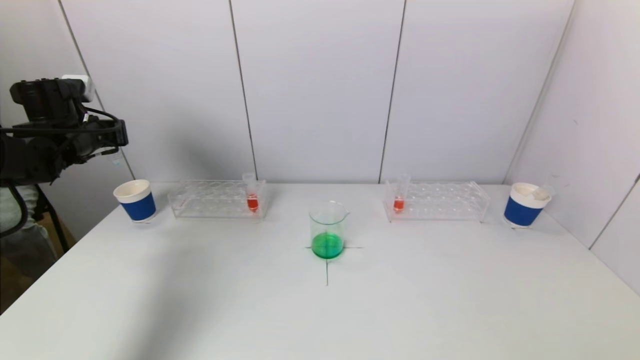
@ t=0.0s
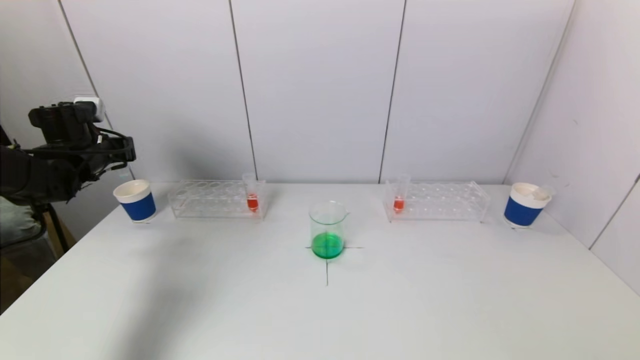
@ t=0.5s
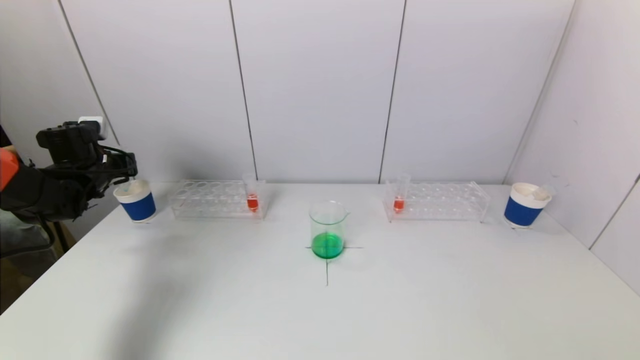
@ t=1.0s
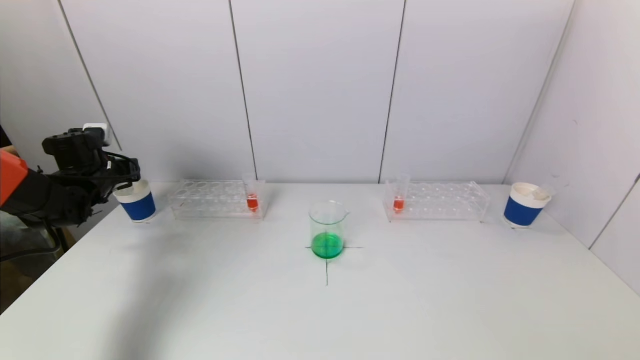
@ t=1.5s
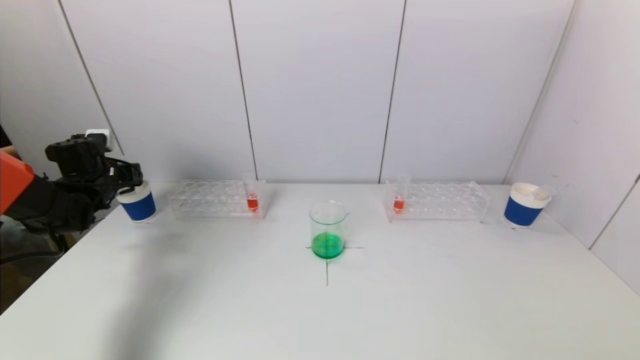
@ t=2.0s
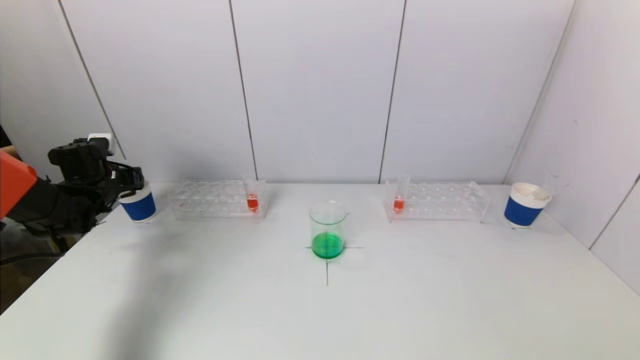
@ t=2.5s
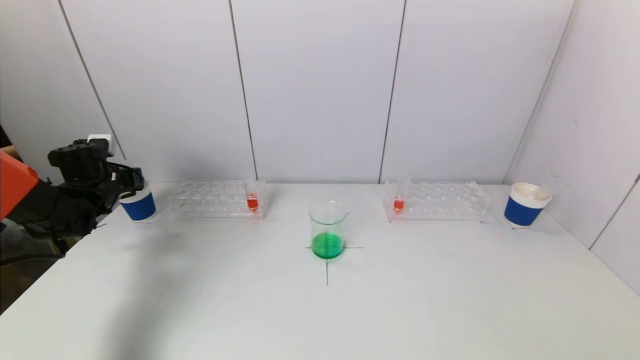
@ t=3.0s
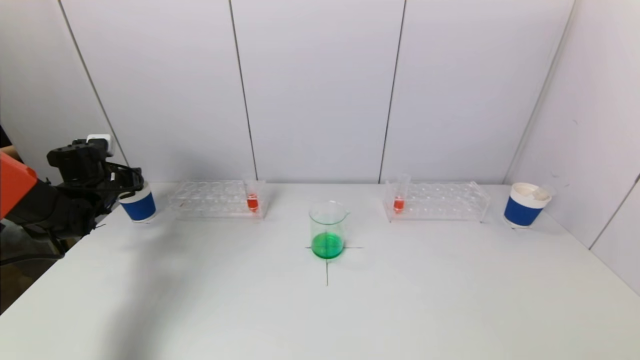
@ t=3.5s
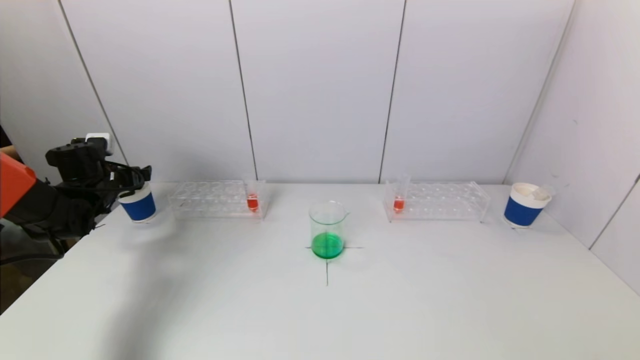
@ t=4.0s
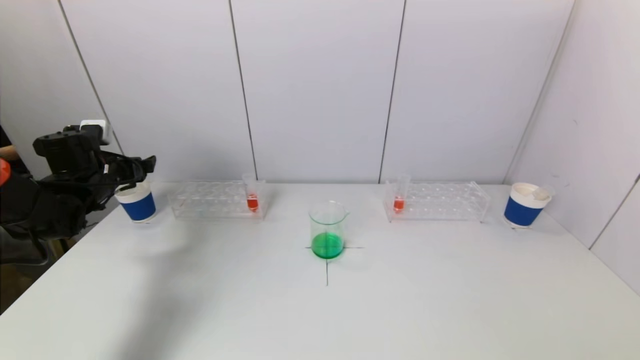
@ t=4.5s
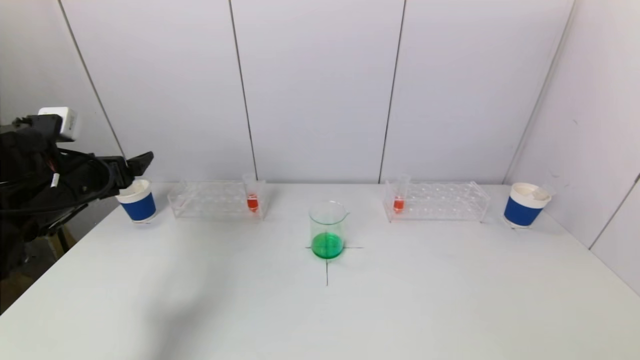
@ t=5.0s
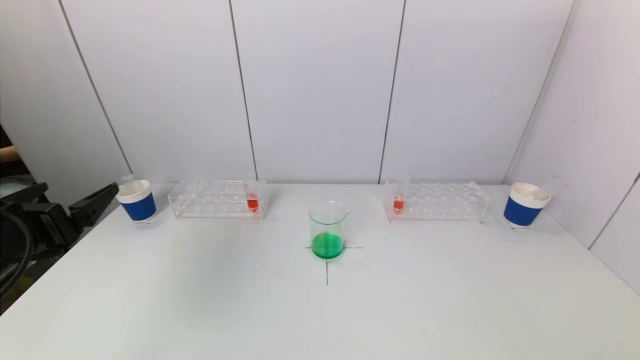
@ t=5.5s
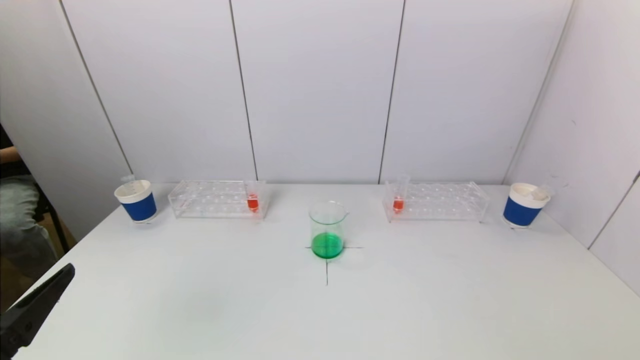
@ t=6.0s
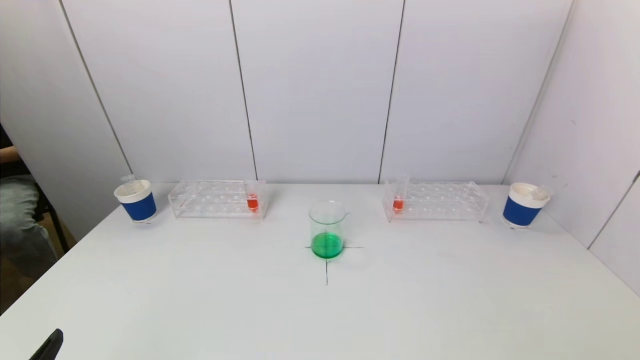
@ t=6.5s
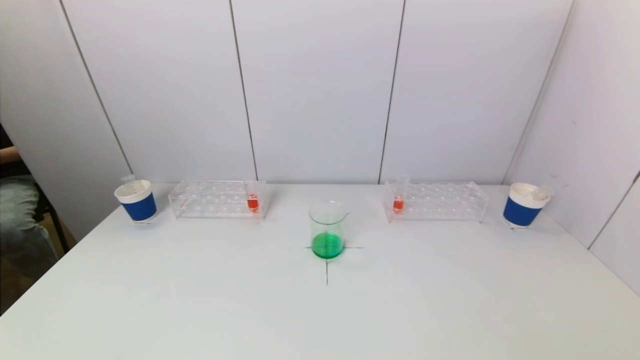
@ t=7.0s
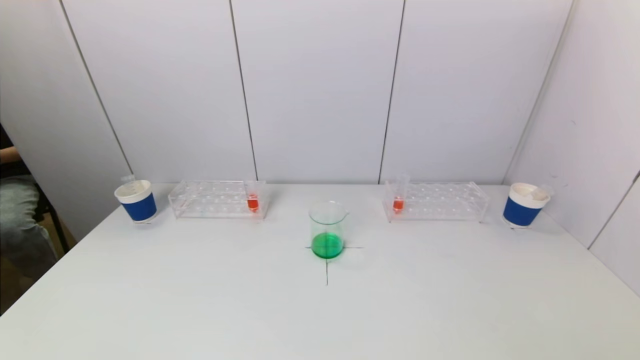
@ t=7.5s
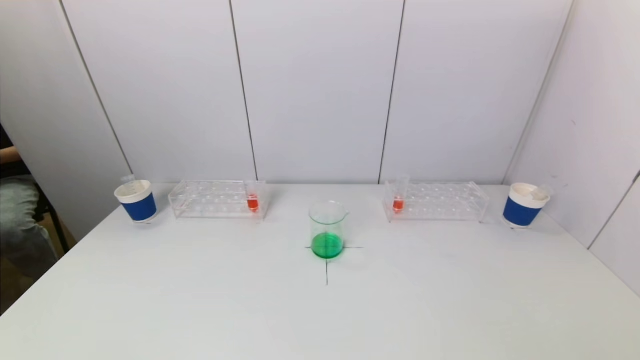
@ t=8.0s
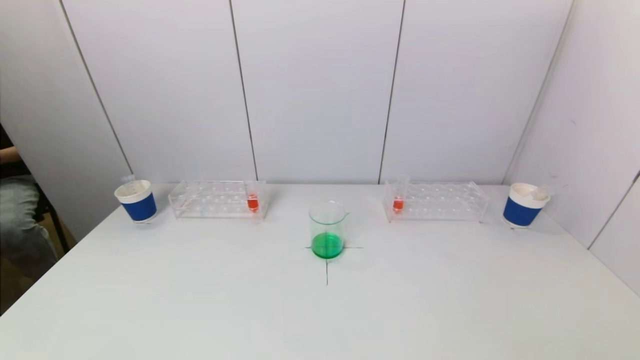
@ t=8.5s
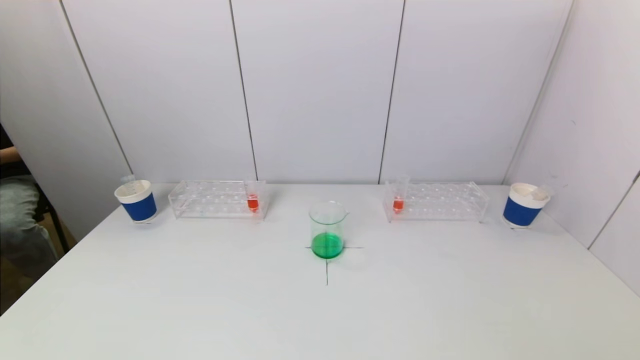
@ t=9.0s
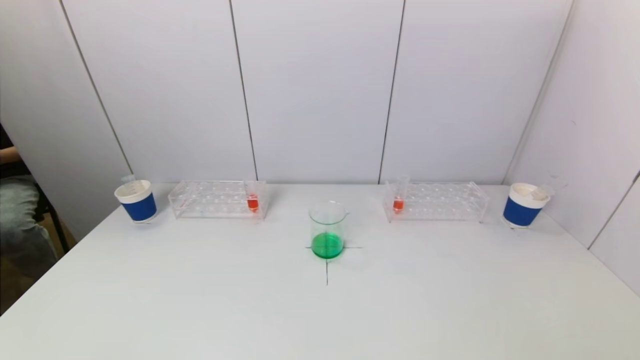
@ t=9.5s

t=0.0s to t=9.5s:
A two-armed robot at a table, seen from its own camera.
Task of the whole recording: pick up a test tube with pigment on left test tube rack and a test tube with pigment on right test tube rack by grippers and pour them into the beaker.
Step, t=0.0s to t=3.5s: Place the test tube into the paper cup with the left gripper.
t=0.0s to t=2.0s: The left gripper heads downward, covering some 10 cm.
t=2.0s to t=4.0s: The left gripper opens its fingers.
t=4.0s to t=5.5s: The left gripper is displaced backward by about 25 cm.
t=5.5s to t=7.5s: The left gripper moves backward and downward, about 20 cm.
t=7.5s to t=9.5s: Neither gripper changes place.

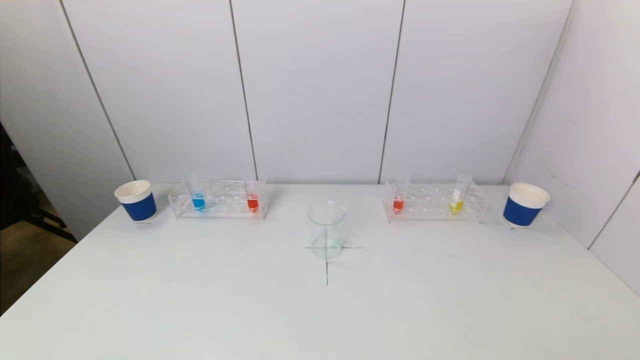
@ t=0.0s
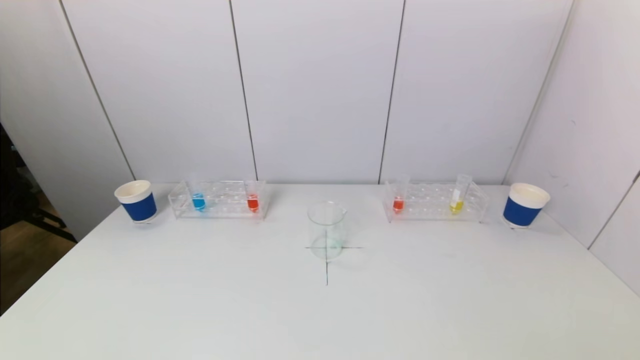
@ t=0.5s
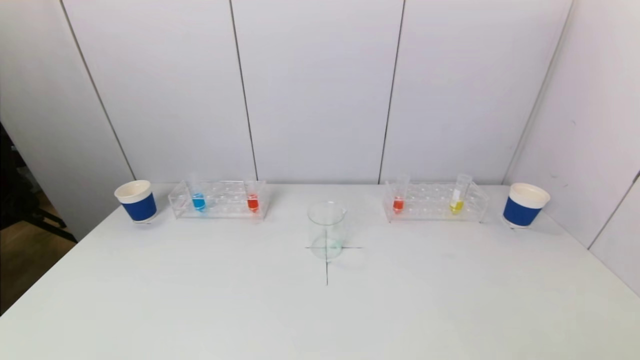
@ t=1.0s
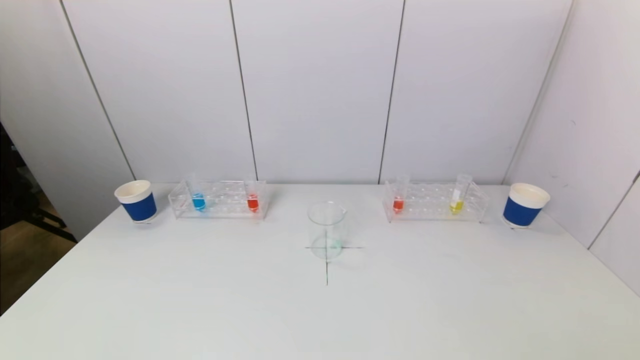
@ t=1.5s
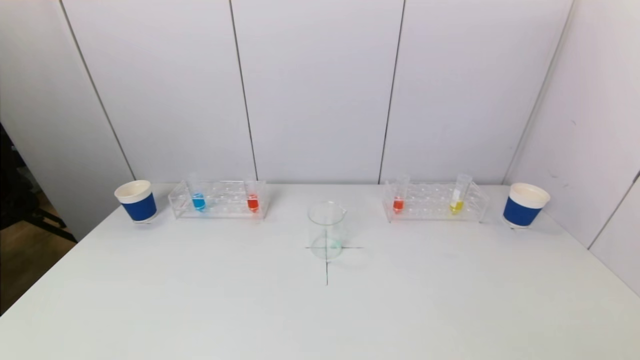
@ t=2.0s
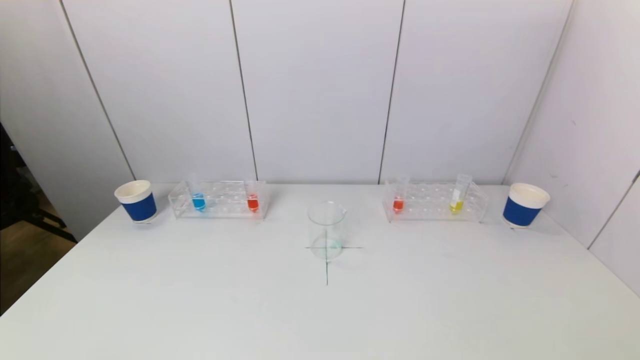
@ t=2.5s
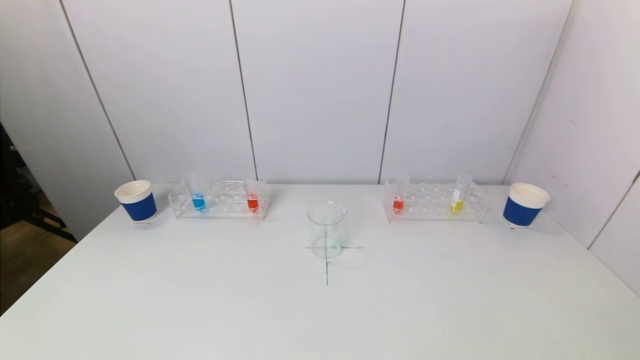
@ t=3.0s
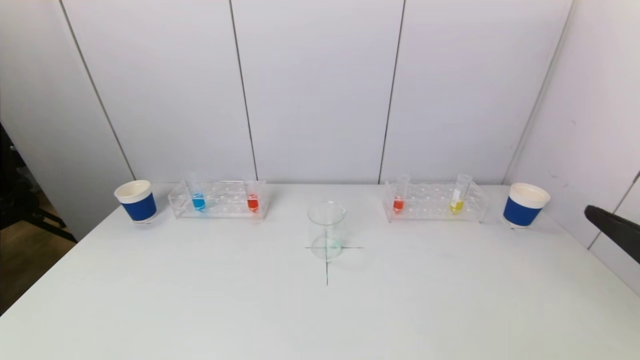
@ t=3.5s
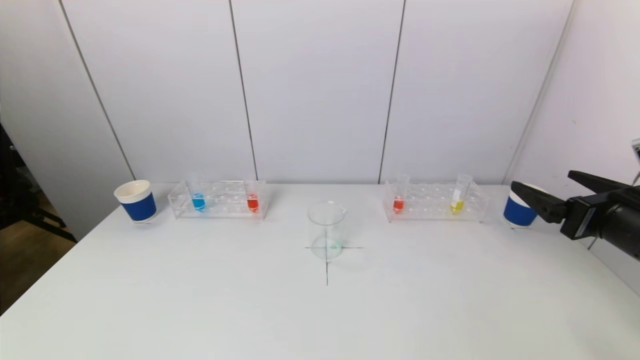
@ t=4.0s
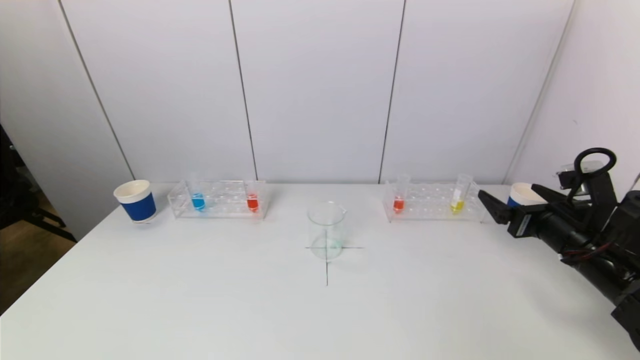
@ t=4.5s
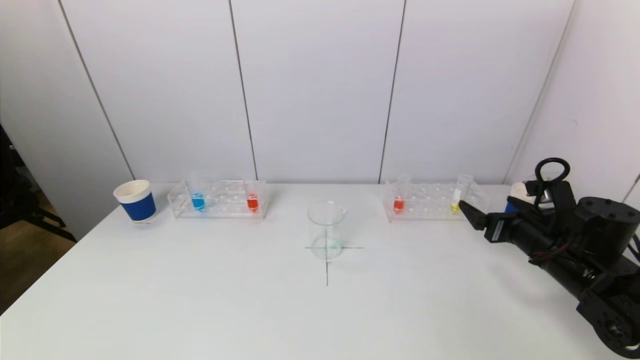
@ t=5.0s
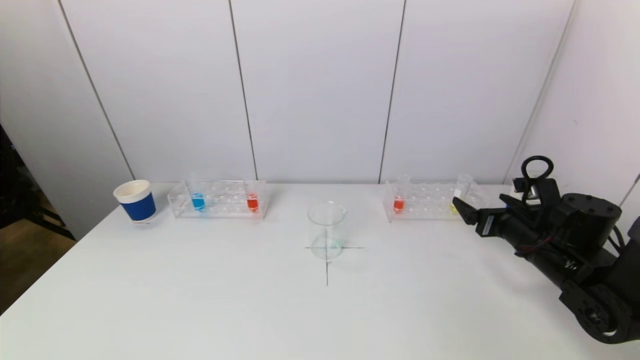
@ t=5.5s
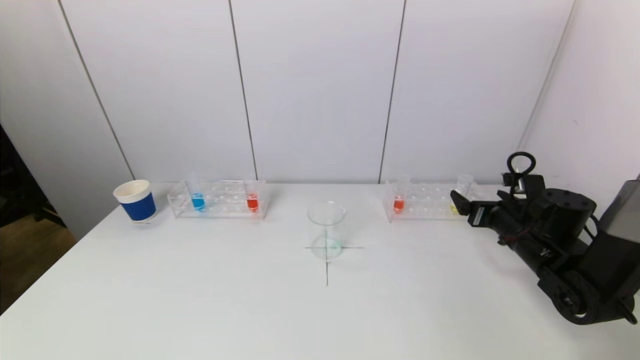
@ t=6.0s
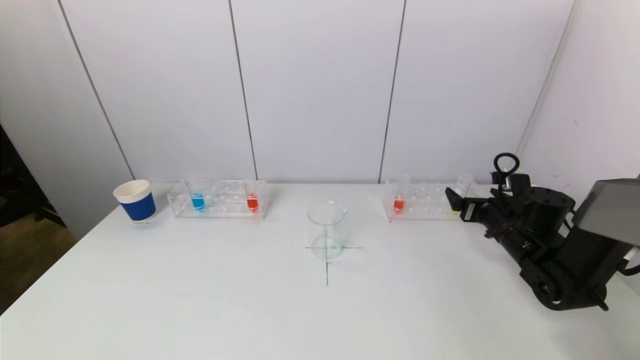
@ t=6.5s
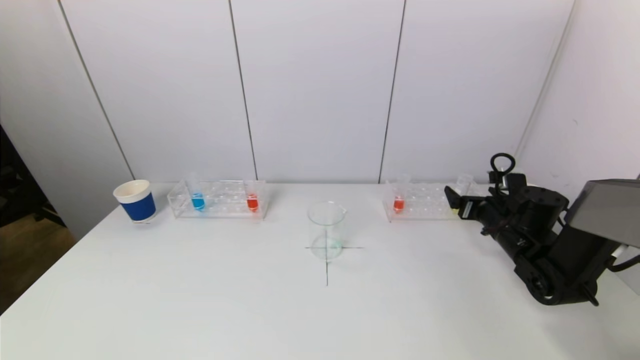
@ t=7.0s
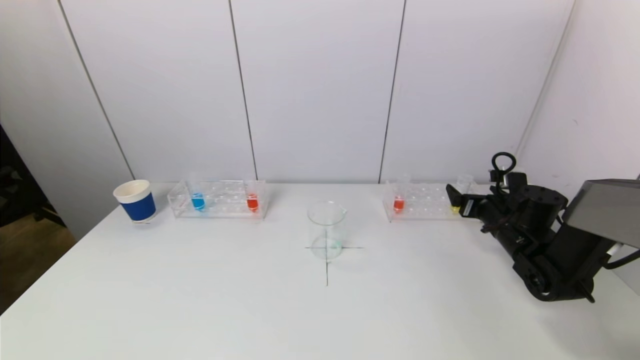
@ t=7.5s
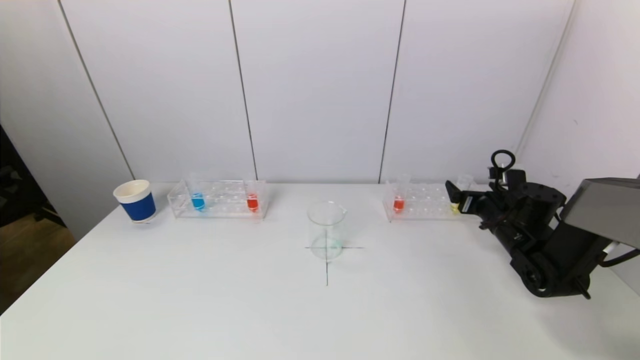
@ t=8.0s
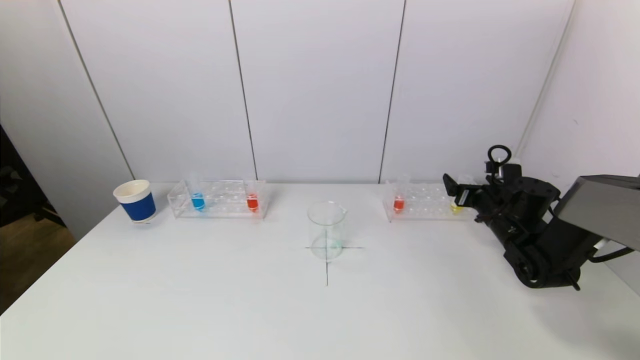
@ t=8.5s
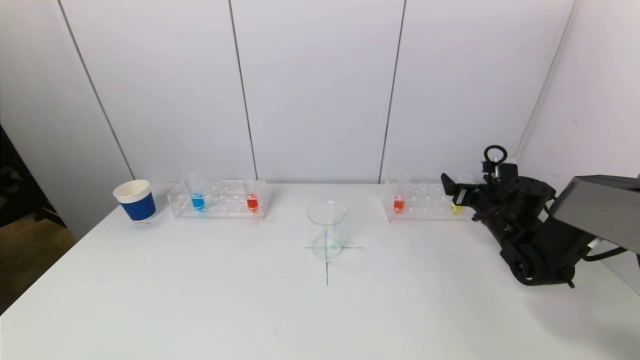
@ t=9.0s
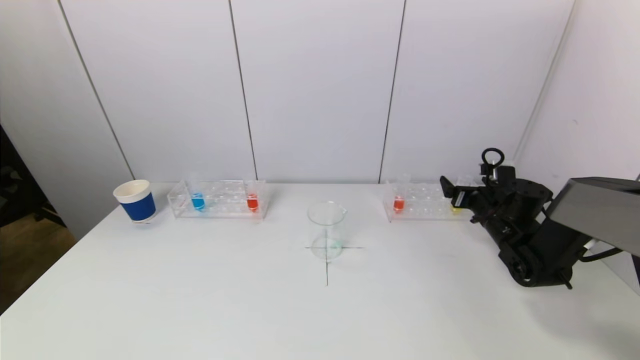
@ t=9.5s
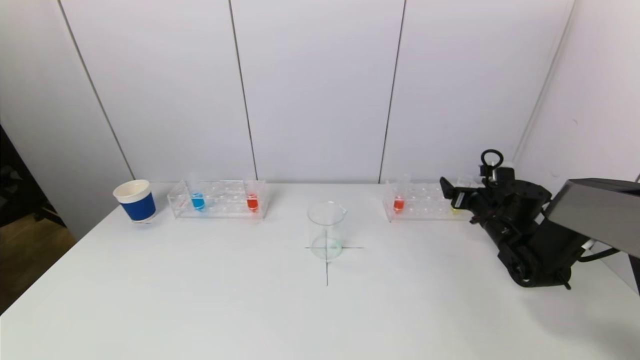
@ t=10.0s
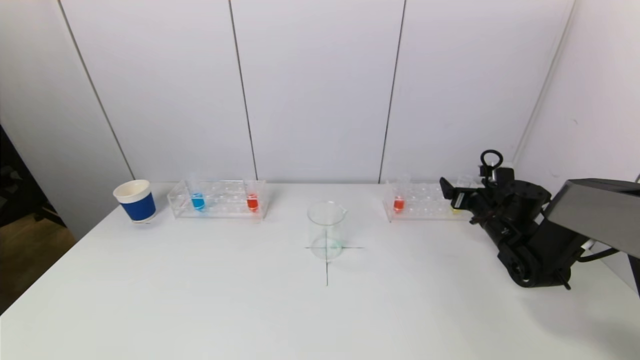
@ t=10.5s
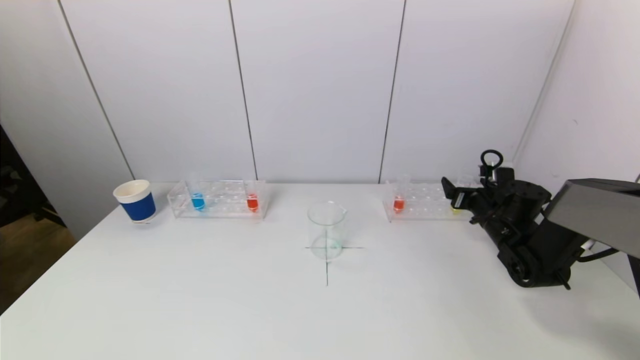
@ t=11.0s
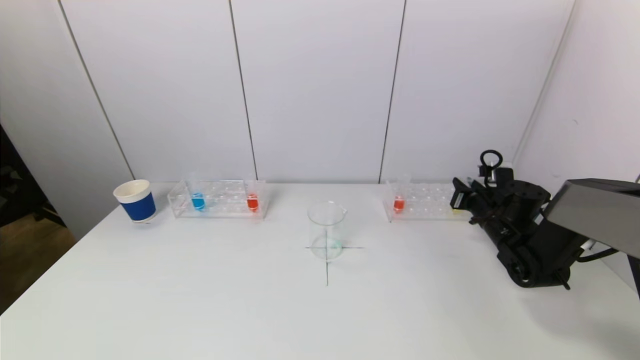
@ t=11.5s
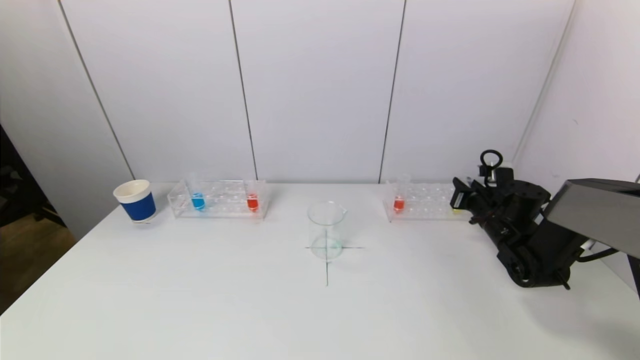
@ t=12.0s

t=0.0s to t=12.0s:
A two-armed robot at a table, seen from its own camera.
Task of the whole recording: pick up a test tube with pigment on left test tube rack and a test tube with pigment on right test tube rack by grippers and pour them into the beaker.
Step, t=0.0s to t=11.5s: Grasp the yellow reagent with the right gripper.
t=0.0s to t=2.0s: Neither gripper changes place.
t=2.0s to t=4.0s: The right gripper shifts about 25 cm forward and upward.
t=4.0s to t=6.0s: The right gripper moves forward and downward, some 15 cm.
t=6.0s to t=8.0s: The right gripper goes roughly 5 cm forward.
t=8.0s to t=10.0s: The grippers stay close to where they were, moving slightly.
